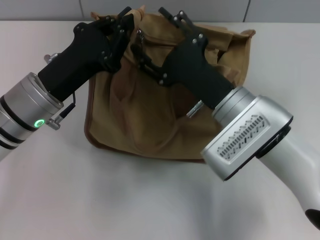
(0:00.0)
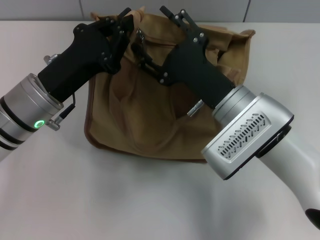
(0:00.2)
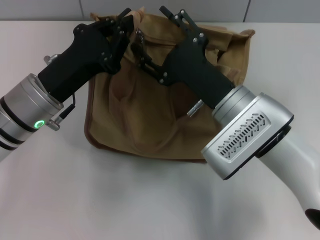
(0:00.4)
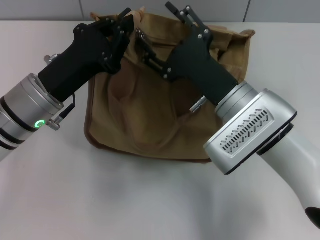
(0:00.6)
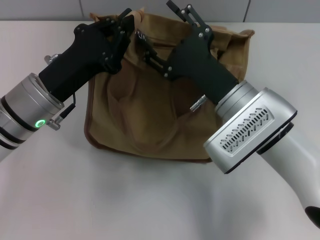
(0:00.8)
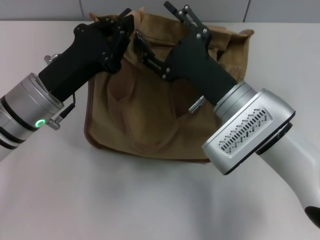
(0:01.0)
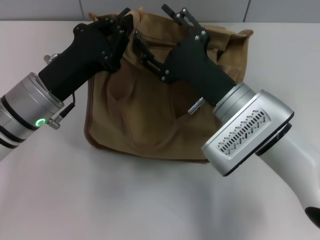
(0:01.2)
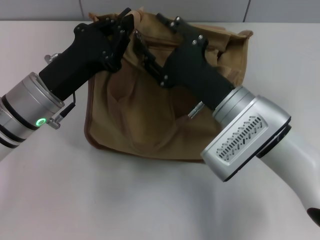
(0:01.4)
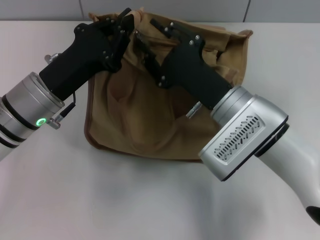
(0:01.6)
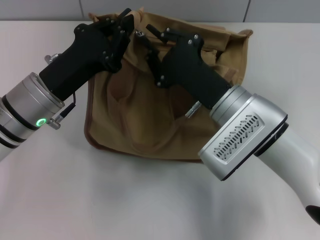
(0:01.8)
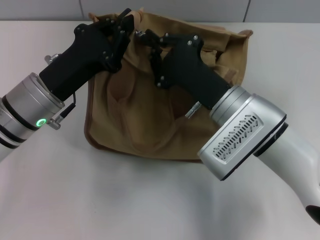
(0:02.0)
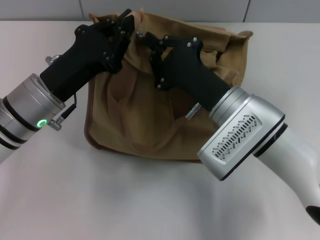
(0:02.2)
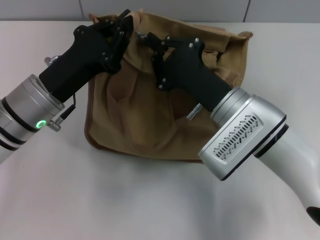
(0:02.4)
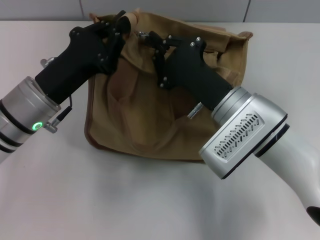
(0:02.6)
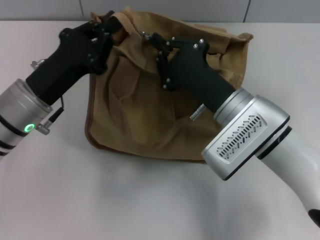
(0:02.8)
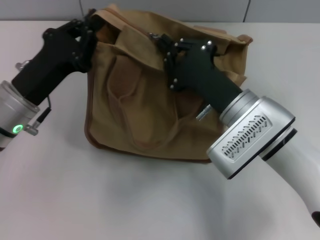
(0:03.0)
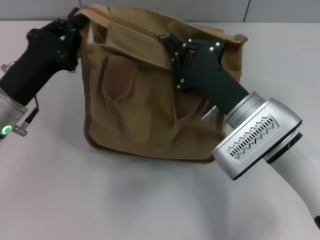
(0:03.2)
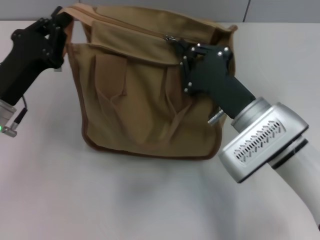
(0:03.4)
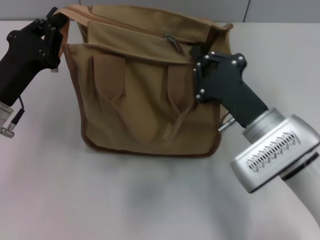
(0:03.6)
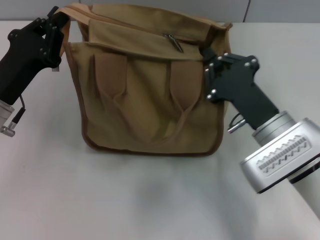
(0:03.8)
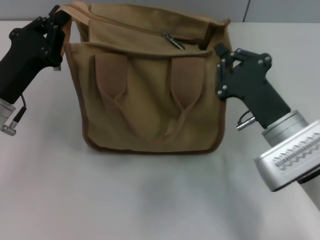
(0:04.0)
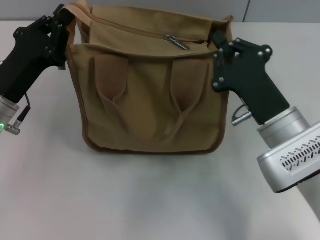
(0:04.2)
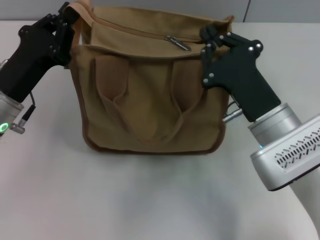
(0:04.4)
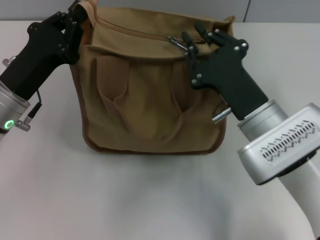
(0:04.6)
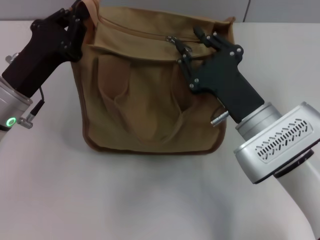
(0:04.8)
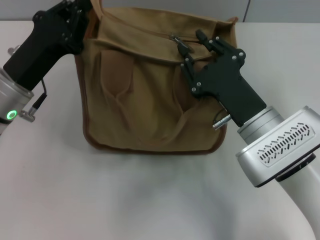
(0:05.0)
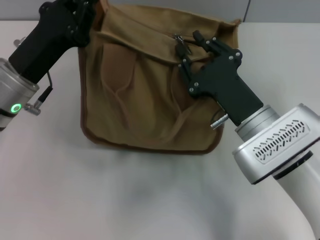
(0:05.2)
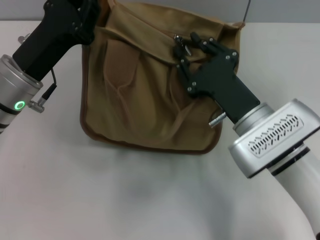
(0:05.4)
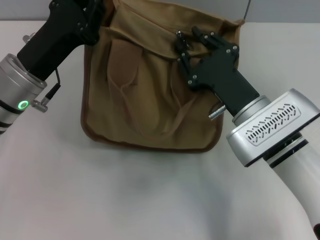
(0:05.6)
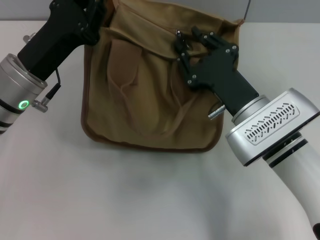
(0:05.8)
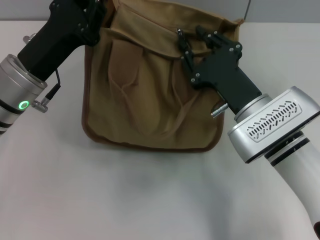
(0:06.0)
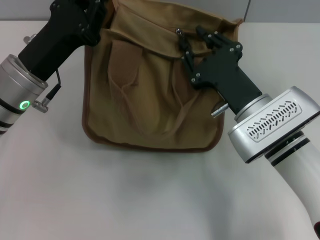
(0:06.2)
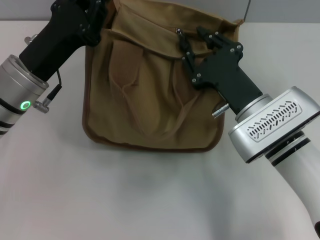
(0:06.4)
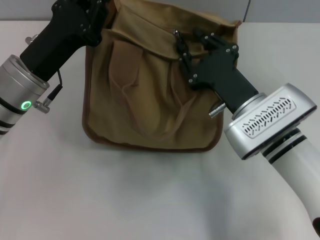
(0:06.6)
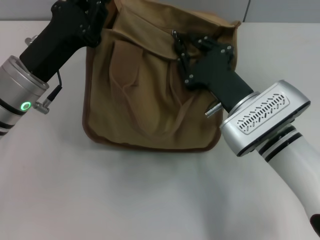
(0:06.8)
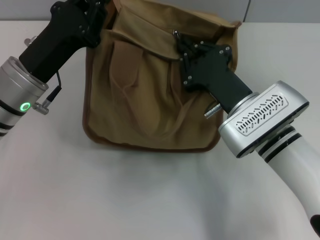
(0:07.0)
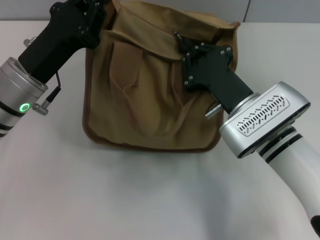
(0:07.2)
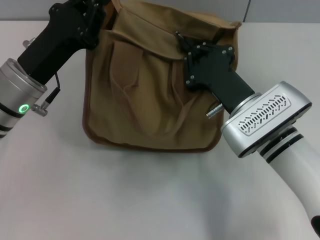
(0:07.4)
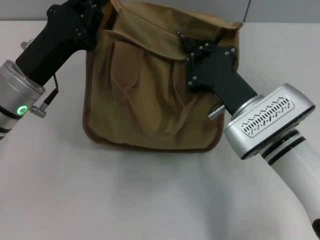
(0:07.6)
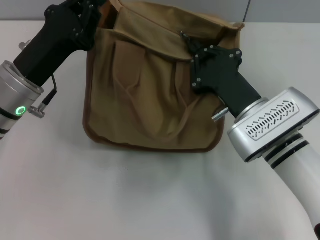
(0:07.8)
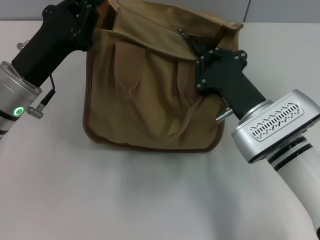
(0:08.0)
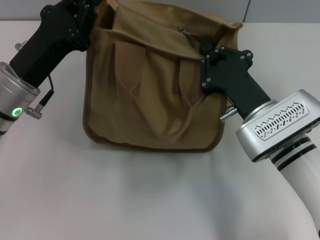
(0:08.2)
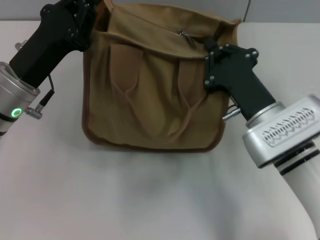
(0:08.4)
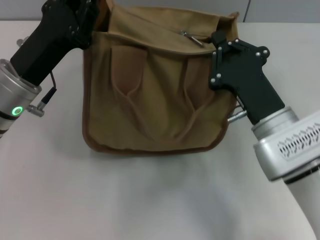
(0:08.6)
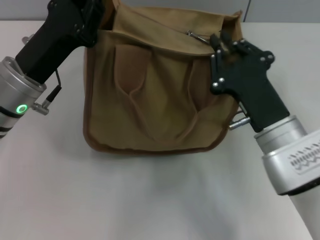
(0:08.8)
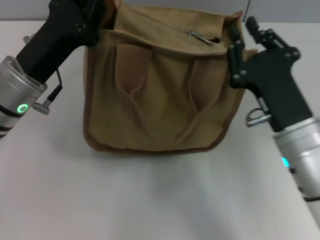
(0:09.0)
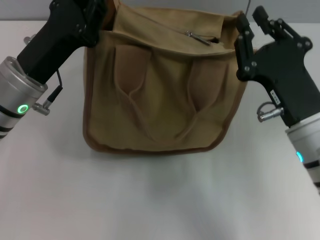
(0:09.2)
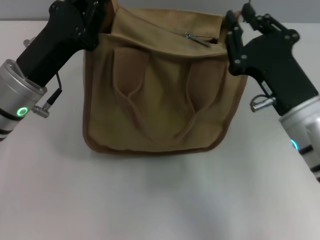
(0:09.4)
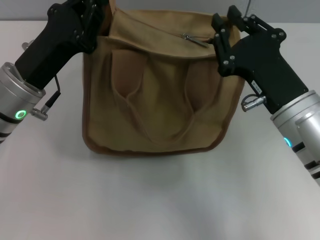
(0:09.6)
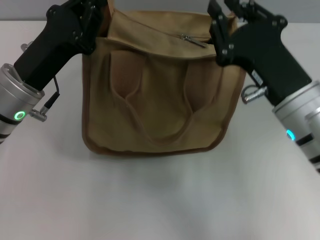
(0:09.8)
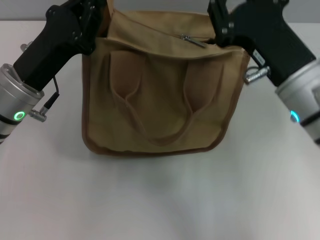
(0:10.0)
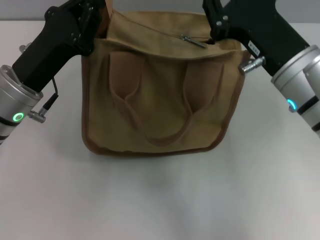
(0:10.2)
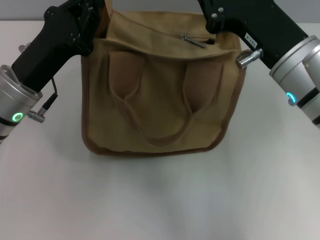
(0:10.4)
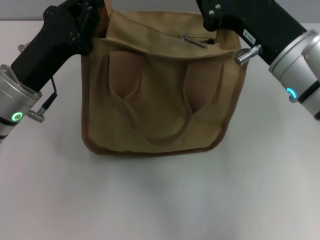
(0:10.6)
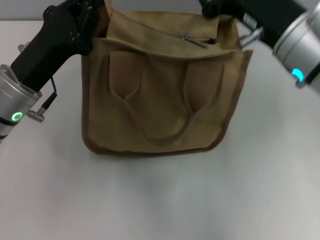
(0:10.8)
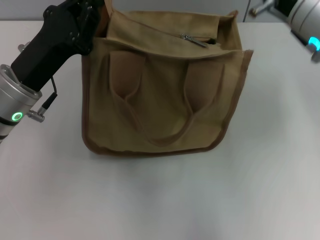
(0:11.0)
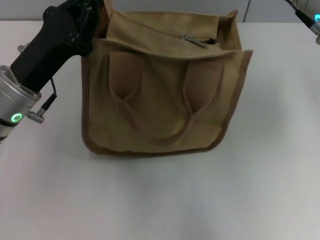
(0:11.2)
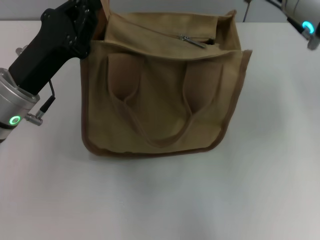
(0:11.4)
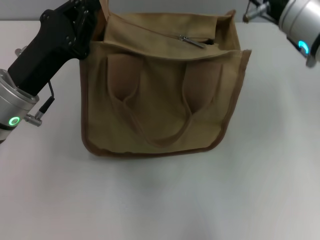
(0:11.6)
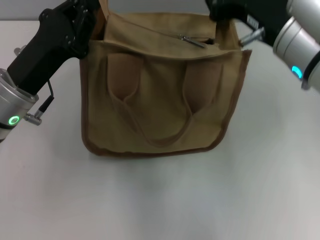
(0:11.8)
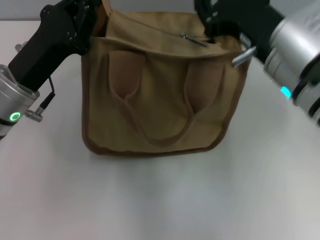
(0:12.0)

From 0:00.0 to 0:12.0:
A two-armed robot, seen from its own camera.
From 0:00.0 to 0:01.6: Neither gripper changes place.
From 0:01.6 to 0:03.0: The right gripper closes.
From 0:04.4 to 0:06.0: The right gripper opens up.
From 0:06.0 to 0:07.6: The right gripper closes.
From 0:07.6 to 0:09.0: The right gripper travels backward by approximately 5 cm.
From 0:09.0 to 0:10.4: The right gripper heads upward, covering roughly 10 cm.

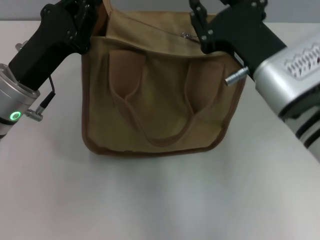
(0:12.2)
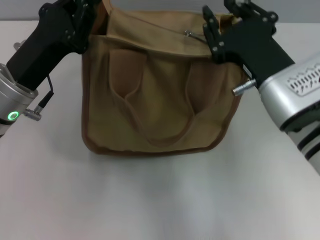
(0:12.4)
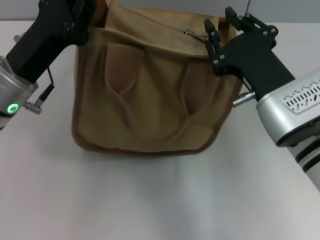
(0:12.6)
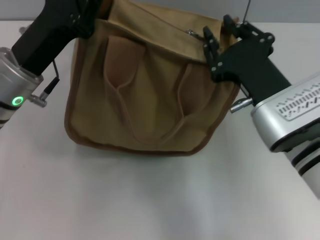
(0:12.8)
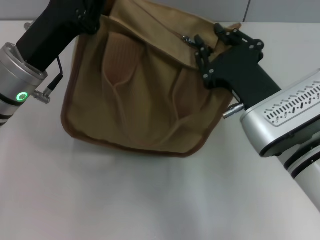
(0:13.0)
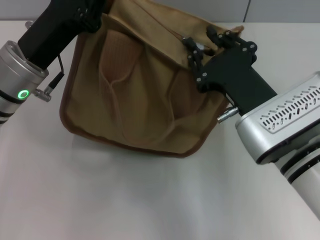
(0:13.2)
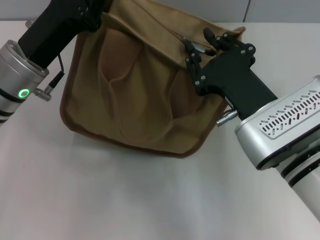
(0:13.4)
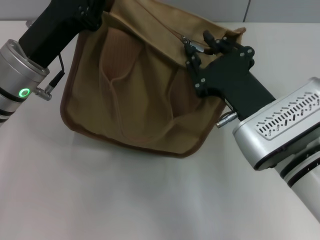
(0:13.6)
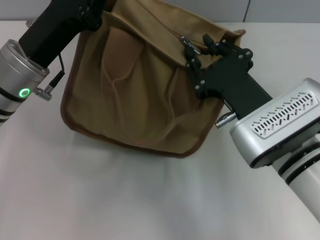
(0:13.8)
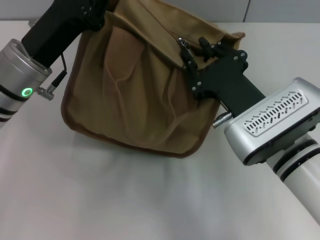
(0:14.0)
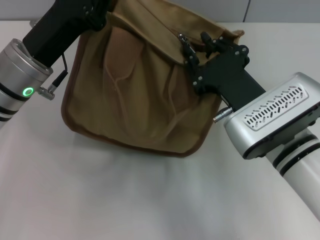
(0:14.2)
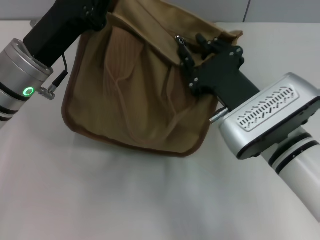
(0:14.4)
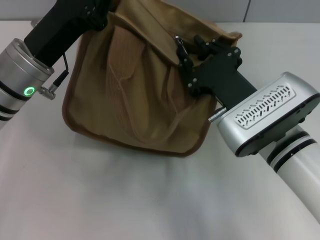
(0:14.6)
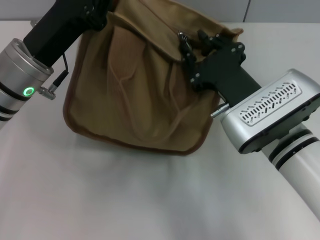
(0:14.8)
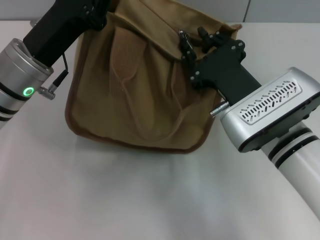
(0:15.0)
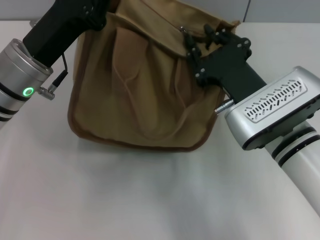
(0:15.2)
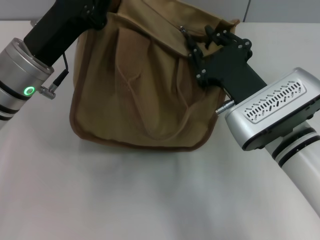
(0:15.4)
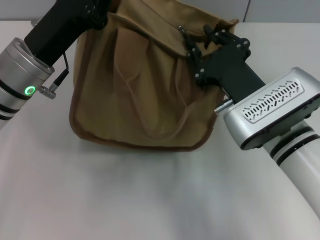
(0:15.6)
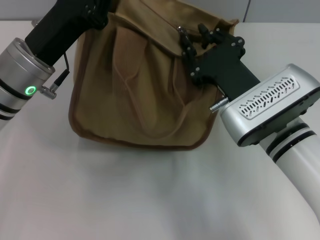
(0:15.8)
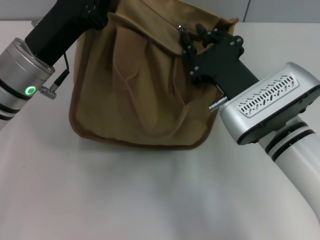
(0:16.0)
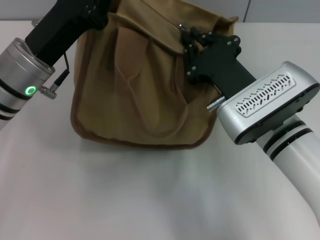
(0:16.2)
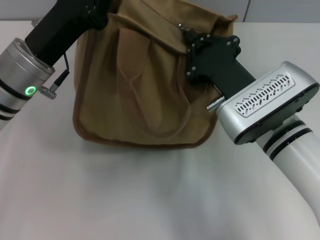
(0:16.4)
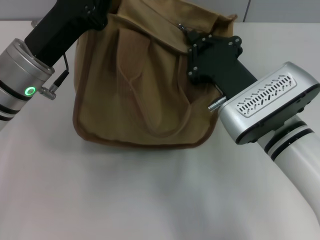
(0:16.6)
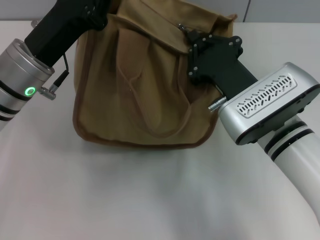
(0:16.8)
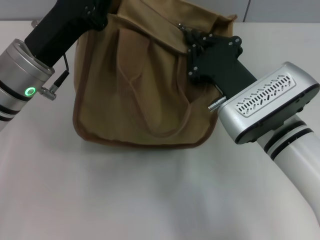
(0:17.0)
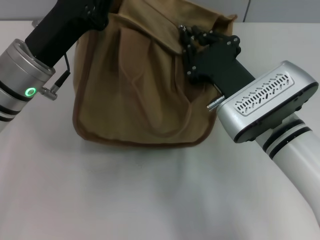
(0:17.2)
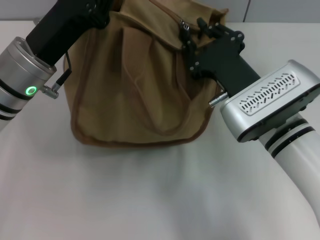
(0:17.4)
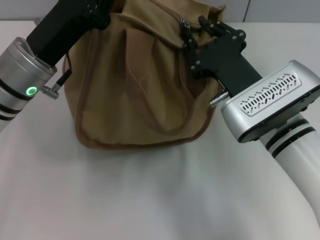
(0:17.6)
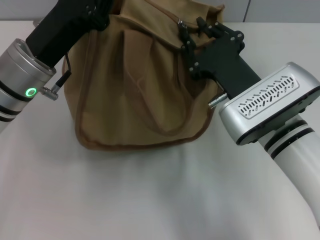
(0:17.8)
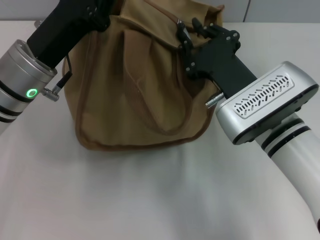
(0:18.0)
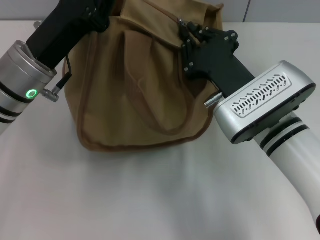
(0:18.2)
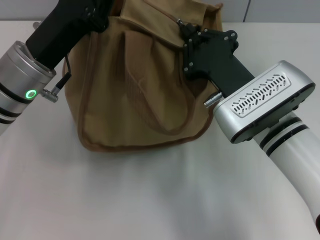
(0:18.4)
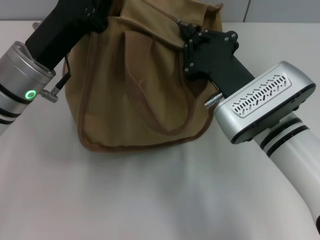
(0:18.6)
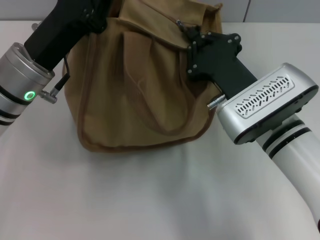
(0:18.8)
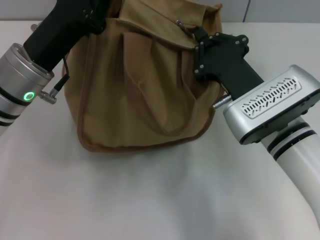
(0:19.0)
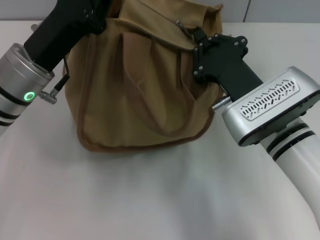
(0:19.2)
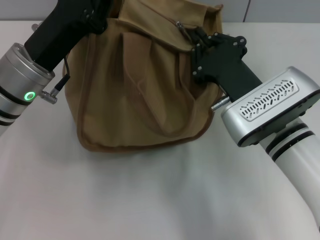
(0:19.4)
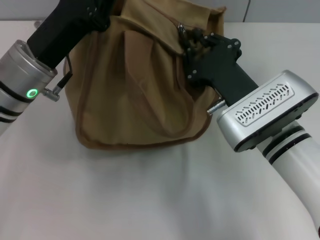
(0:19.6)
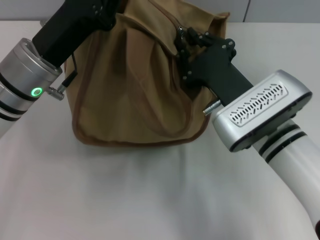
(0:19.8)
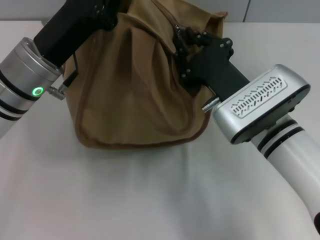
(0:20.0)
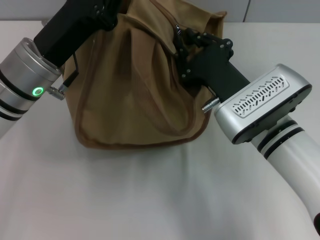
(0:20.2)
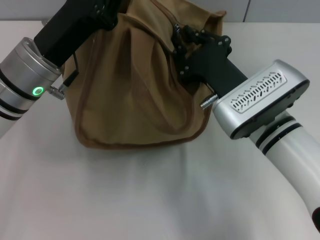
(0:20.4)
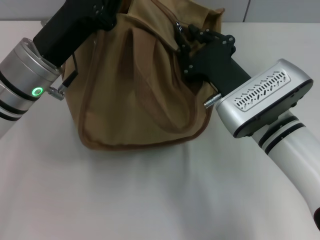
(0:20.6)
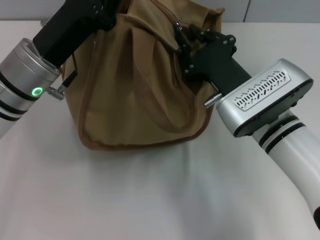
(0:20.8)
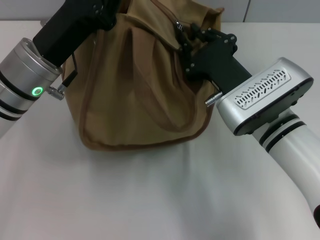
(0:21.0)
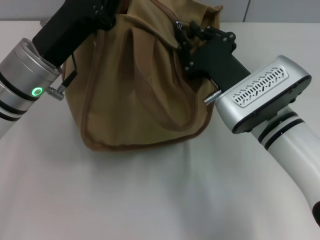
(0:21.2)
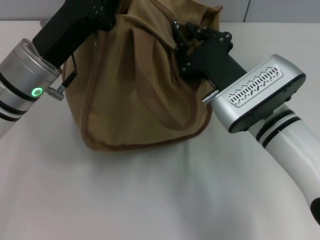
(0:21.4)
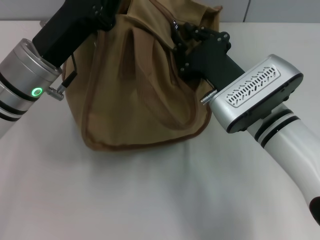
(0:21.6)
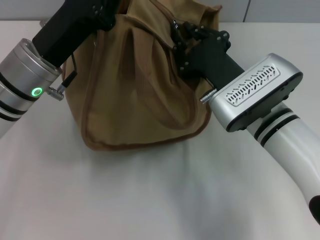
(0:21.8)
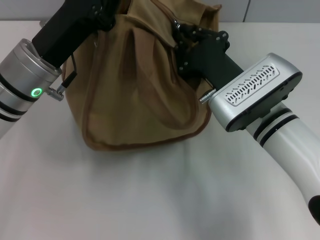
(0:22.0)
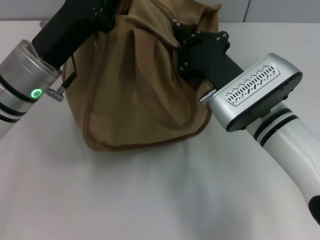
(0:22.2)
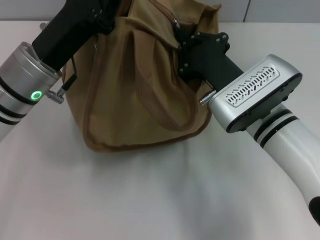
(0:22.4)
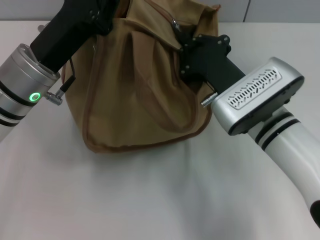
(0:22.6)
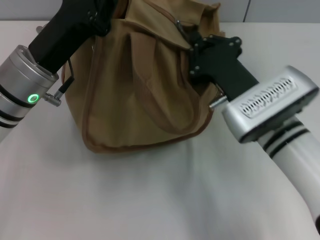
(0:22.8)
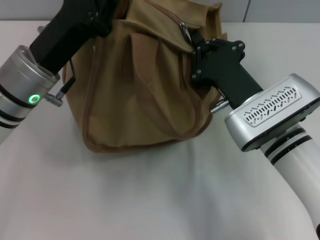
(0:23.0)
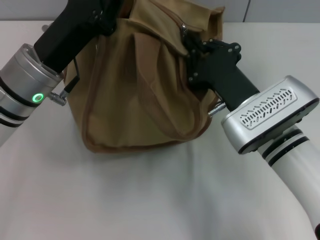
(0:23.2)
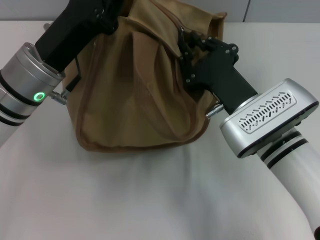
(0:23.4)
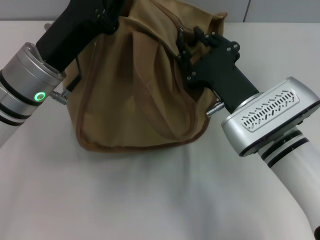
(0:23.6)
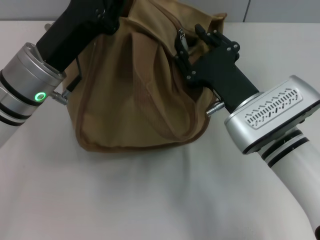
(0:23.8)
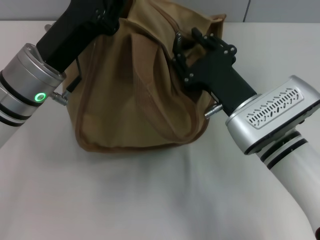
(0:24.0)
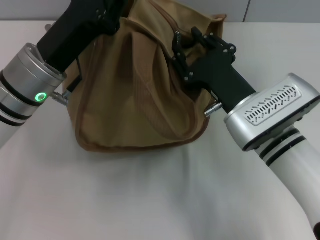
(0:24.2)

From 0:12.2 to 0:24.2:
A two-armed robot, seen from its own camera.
From 0:12.2 to 0:13.8: The right gripper travels downward by some 5 cm.
From 0:13.8 to 0:15.2: The grippers stay close to where they were, moving slightly.
From 0:15.2 to 0:16.6: The right gripper closes its fingers.
From 0:16.6 to 0:19.8: Both grippers stay about where they are.
From 0:19.8 to 0:21.2: There are only small adjustments of the grippers.
From 0:21.2 to 0:22.6: Neither gripper changes place.
From 0:22.6 to 0:24.2: The right gripper opens up.
